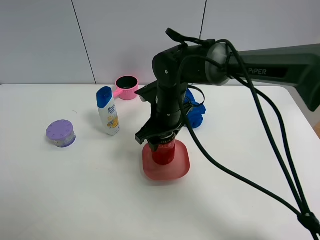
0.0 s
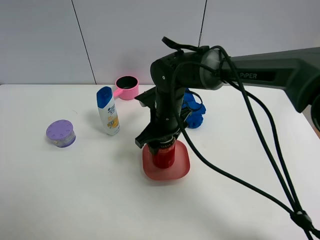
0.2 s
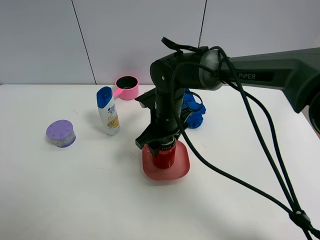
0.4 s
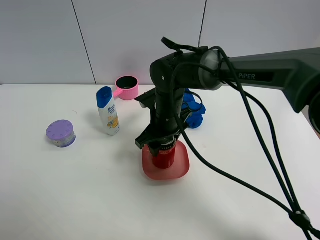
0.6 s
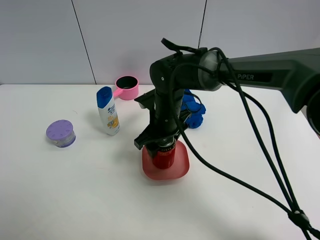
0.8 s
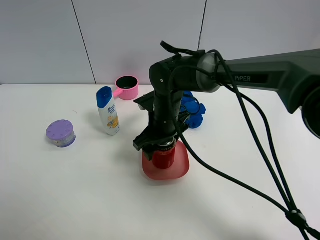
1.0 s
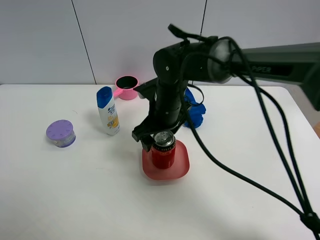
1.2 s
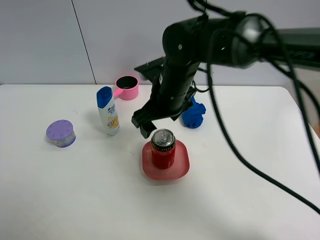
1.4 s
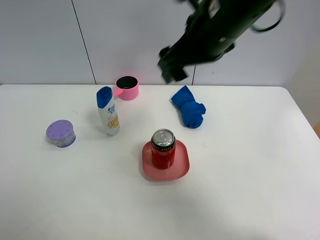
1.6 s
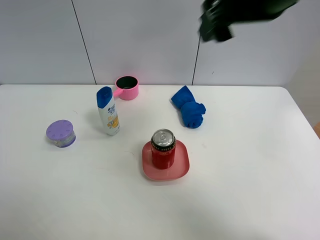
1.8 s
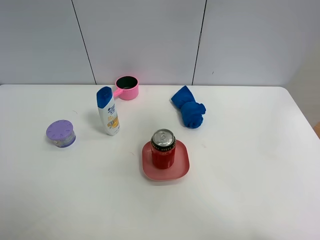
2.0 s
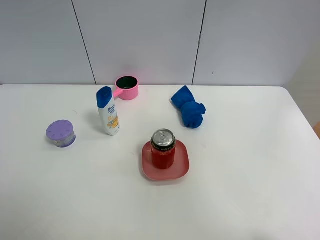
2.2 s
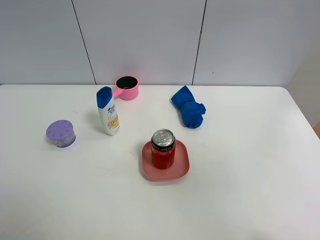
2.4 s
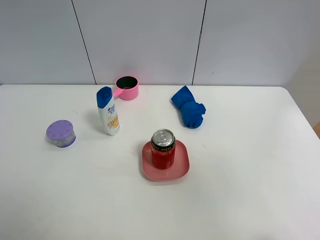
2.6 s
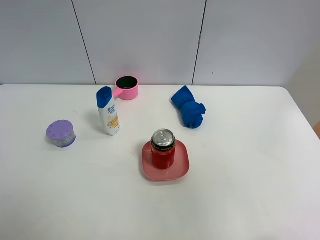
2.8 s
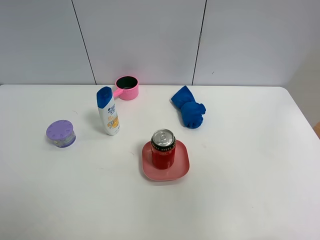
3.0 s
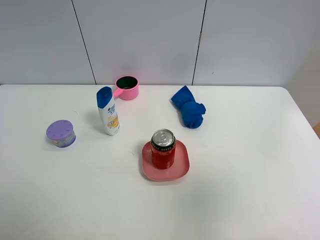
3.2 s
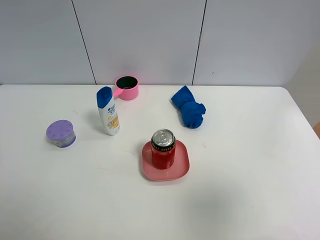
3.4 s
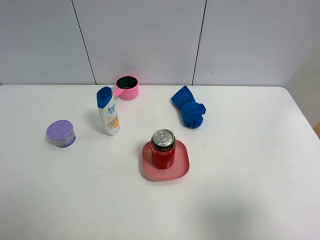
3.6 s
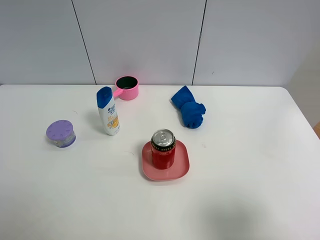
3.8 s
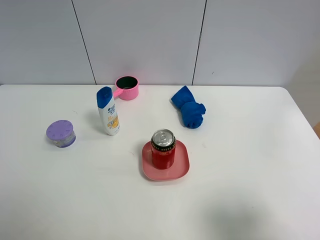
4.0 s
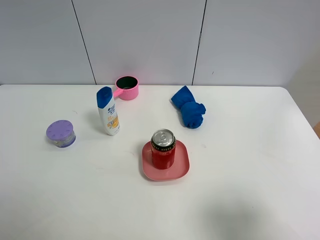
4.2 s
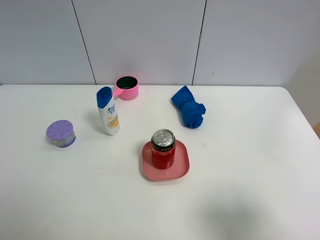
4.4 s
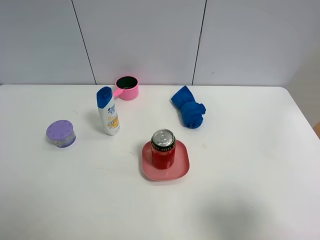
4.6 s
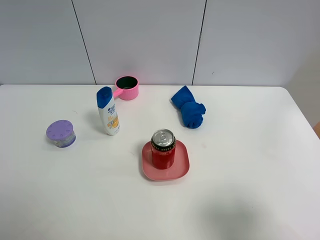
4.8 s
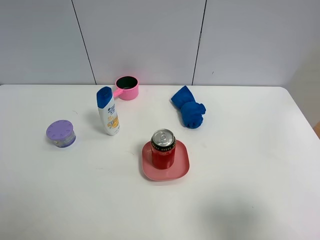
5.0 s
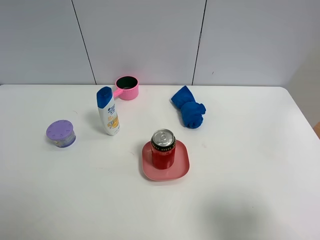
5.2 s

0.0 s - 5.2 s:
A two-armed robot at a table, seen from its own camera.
Task of the whole recording: the gripper move the object.
0.0 s - 1.8 s: The right gripper heads upward and to the right, covering about 30 cm, and opens.
1.8 s - 3.4 s: The right gripper shifts some 25 cm backward, to the right and downward.
3.4 s - 5.2 s: The right gripper moves downward, approximately 10 cm.

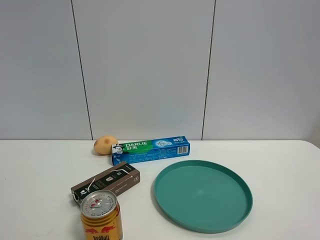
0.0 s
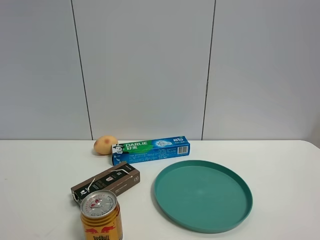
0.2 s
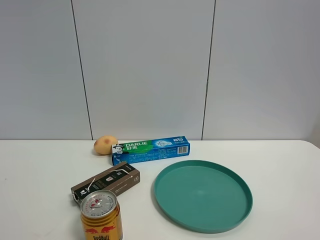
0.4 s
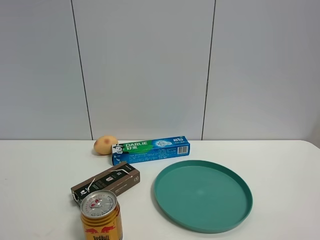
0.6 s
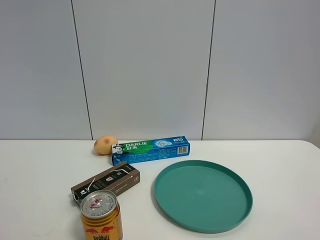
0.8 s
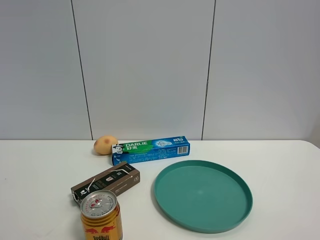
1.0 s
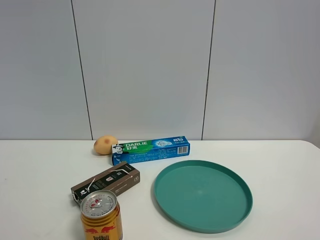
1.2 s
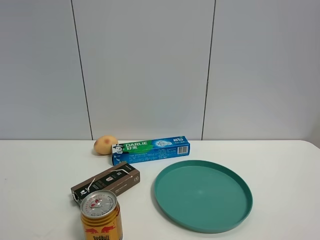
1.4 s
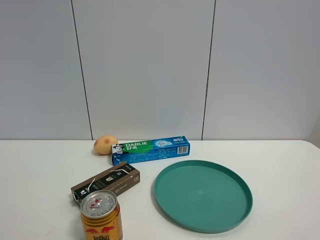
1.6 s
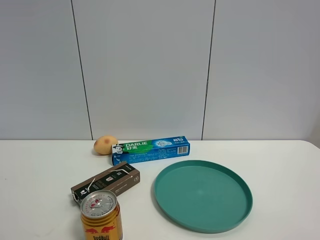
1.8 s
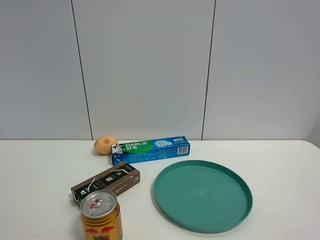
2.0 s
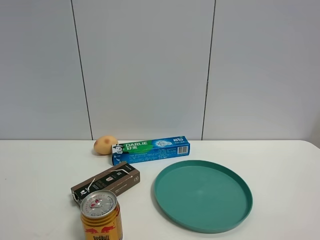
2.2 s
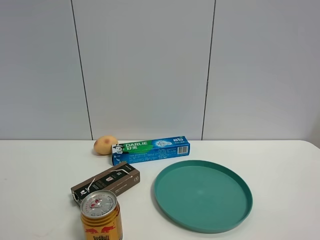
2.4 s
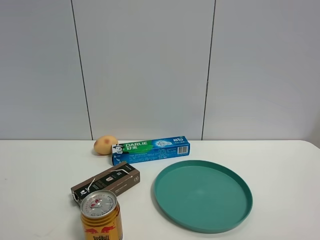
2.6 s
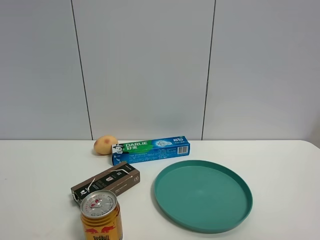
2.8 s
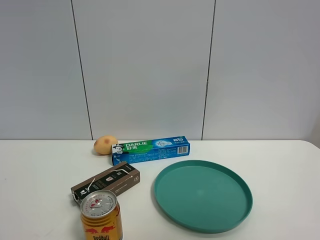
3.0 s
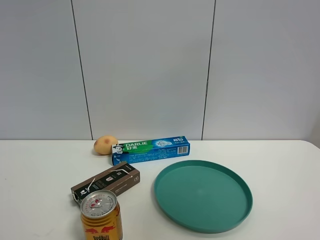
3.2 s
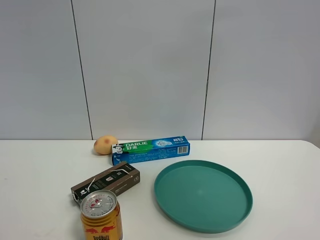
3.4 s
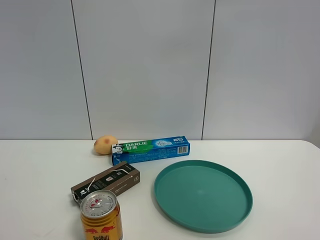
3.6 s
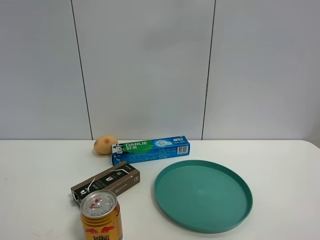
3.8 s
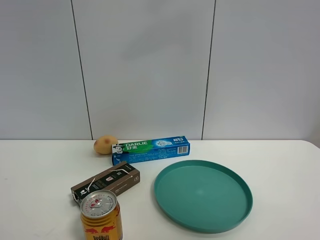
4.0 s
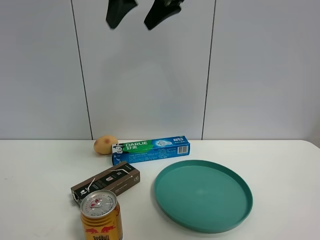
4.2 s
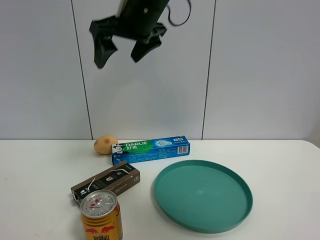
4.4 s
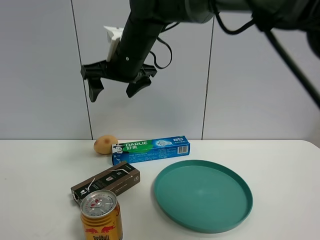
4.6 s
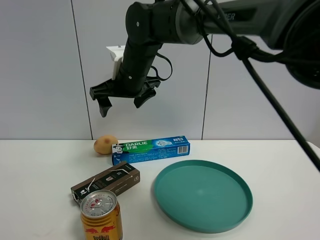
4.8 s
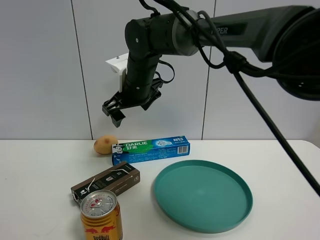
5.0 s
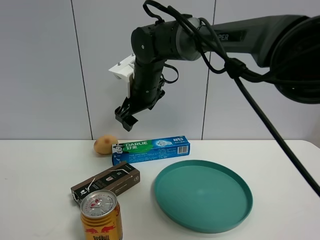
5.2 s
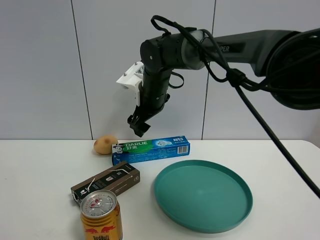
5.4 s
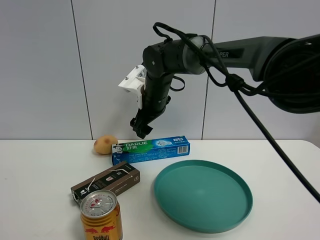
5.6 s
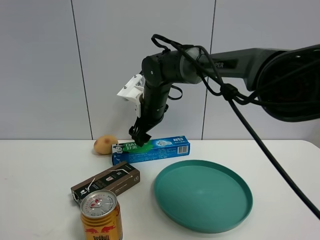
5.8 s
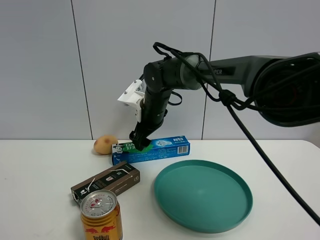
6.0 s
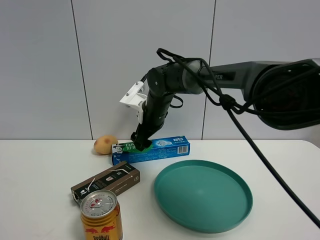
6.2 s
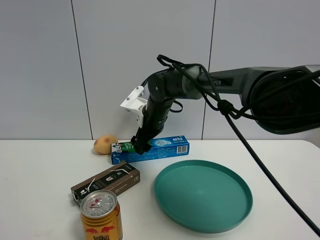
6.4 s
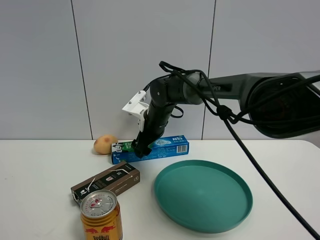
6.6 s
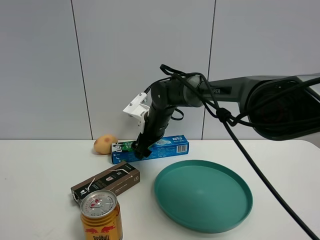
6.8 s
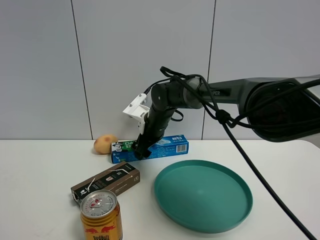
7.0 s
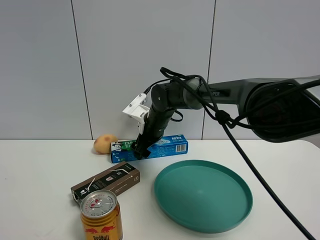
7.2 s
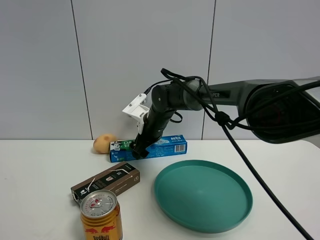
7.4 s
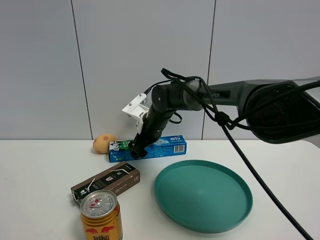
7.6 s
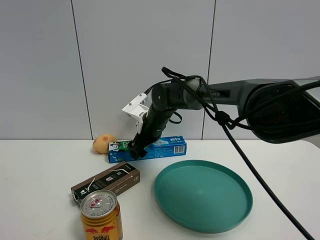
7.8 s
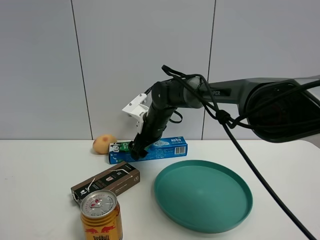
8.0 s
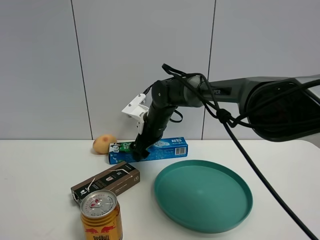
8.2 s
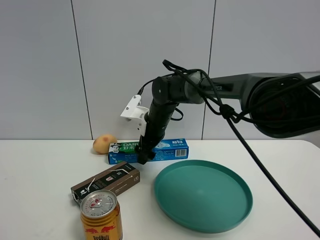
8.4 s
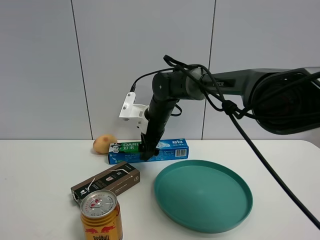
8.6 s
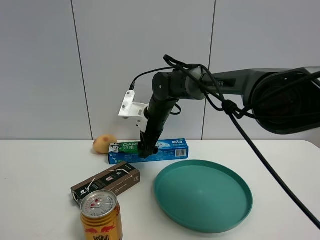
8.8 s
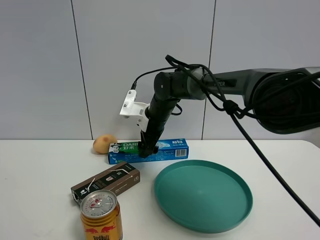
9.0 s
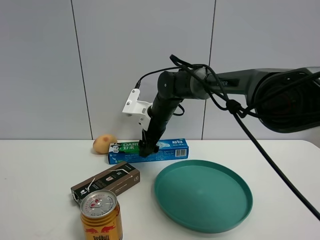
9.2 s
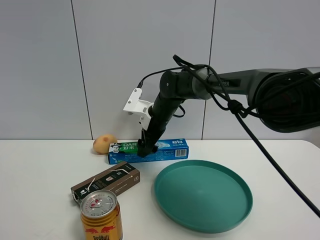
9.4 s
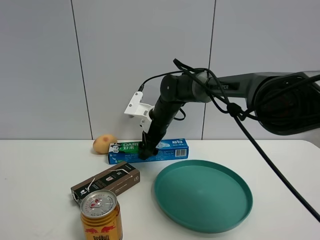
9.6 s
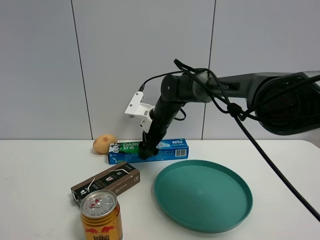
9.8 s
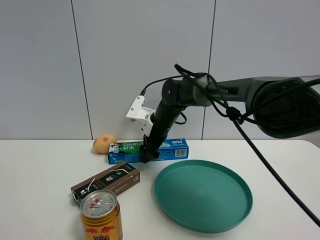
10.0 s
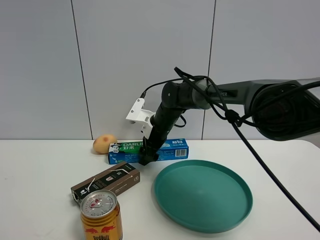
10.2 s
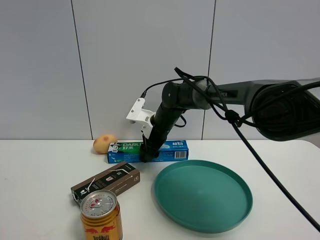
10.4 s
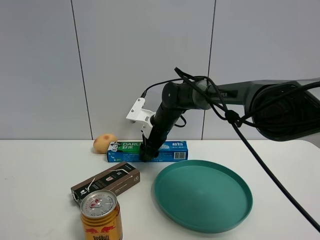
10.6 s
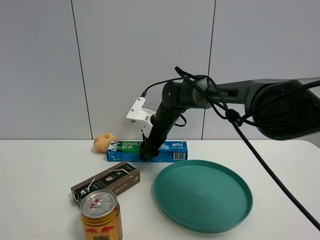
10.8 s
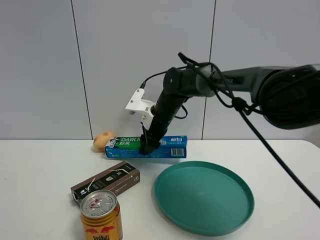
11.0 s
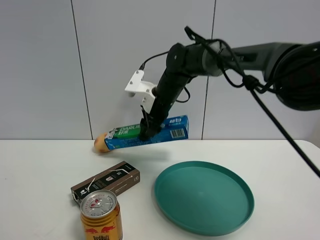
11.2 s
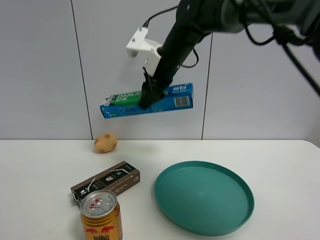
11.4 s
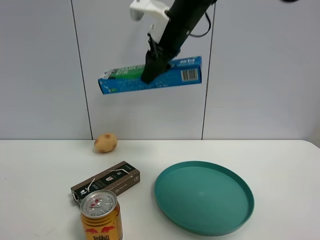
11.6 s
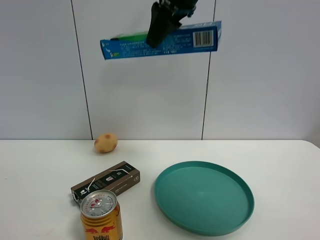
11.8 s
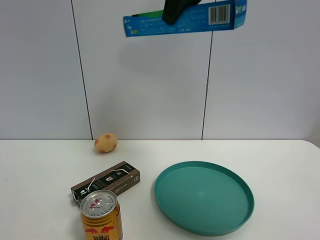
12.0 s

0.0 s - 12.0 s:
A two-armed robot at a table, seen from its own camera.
Task of the whole recording: the gripper move the object.
Step, 0.0 s - 10.6 s: Grasp the toothpaste with the right gripper.
1.6 s - 3.0 s: The right gripper is displaced upward by about 15 cm, and opens up.
3.0 s - 4.4 s: The right gripper moves forward and to the left, roughly 40 cm.
4.4 s - 6.0 s: The right gripper is displaced downward and forward by approximately 20 cm.
6.0 s - 7.6 s: The right gripper moves some 5 cm.
9.0 s - 10.4 s: The right gripper closes up.
10.4 s - 12.0 s: The right gripper moves upward, some 35 cm.

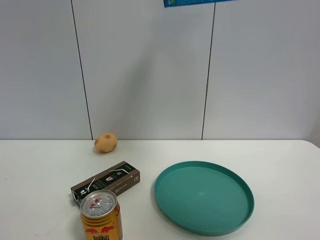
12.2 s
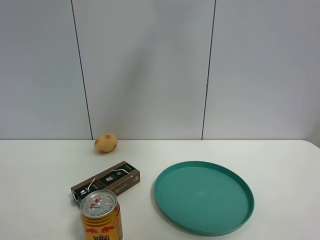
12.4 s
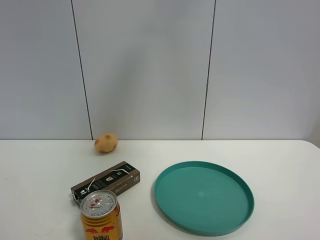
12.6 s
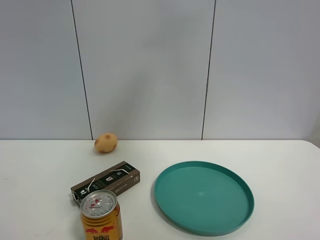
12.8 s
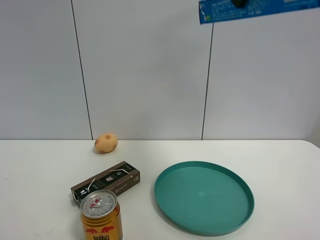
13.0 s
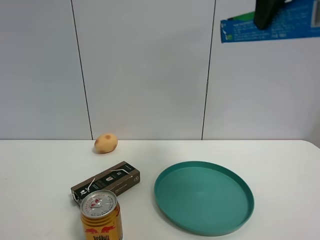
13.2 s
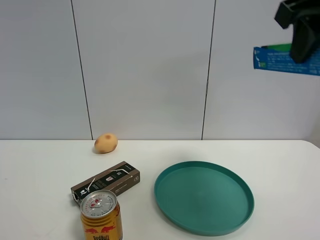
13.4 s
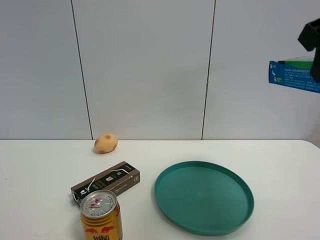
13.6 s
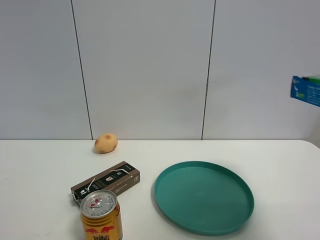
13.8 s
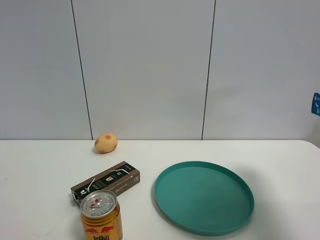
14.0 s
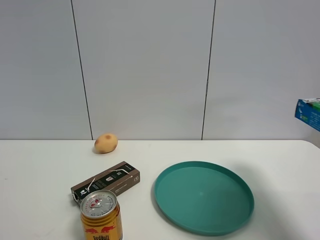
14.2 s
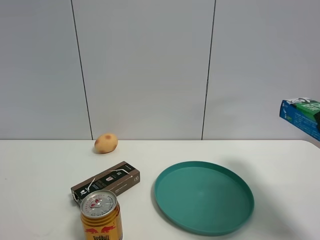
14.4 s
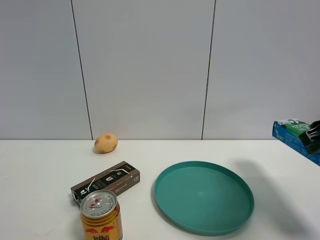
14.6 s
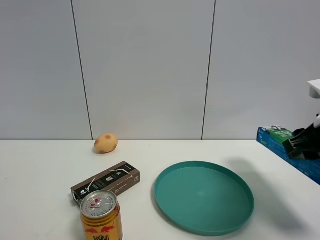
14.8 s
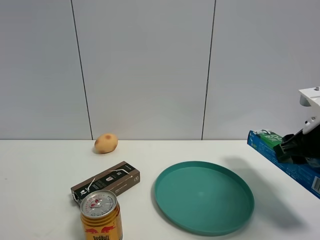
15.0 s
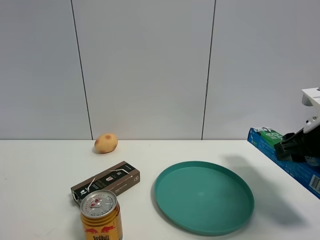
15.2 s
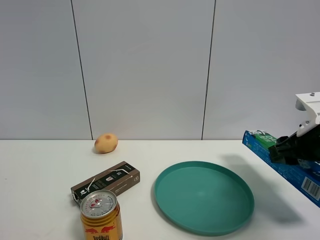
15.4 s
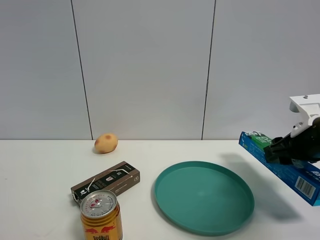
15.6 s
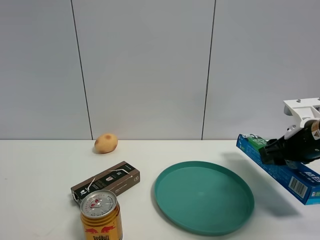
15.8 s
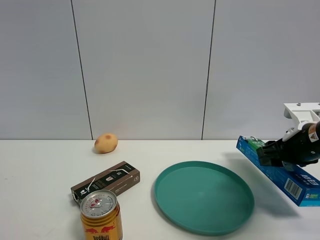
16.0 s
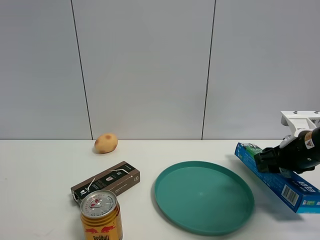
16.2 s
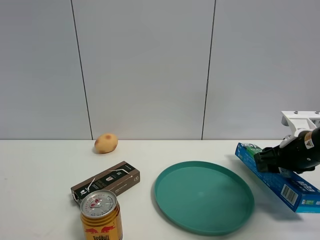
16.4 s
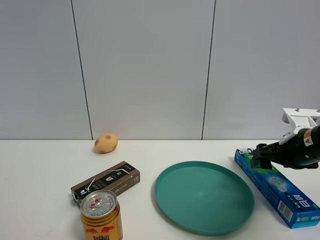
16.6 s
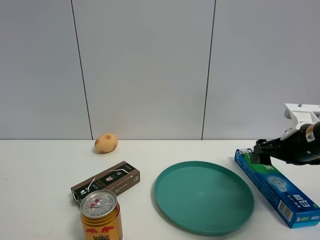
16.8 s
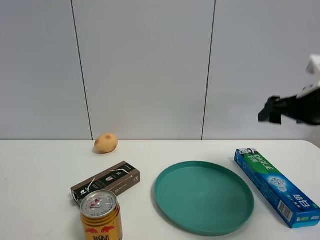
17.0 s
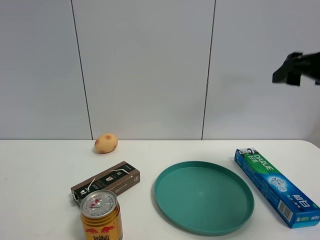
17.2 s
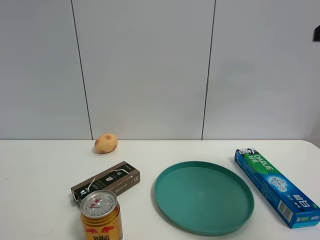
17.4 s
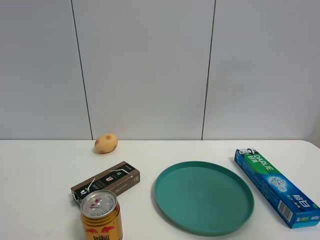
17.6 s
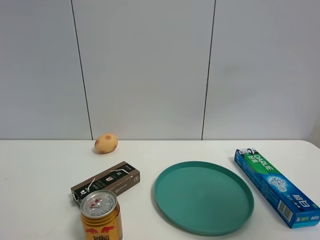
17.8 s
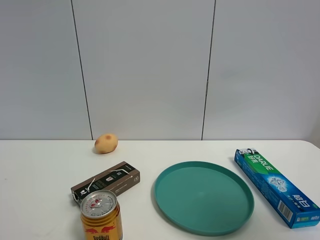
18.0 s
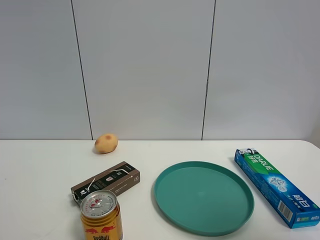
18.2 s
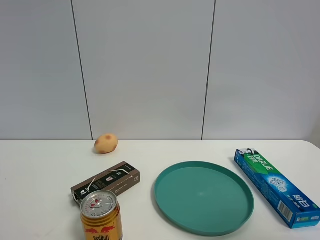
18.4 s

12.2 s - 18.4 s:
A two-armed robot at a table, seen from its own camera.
Task of the whole recording: the gripper move the object.
Step, 12.2 s - 16.8 s: Place the toothpaste on the table with the right gripper.
12.2 s - 13.8 s: The right gripper travels downward, backward and to the right by about 25 cm.
13.8 s - 15.4 s: The right gripper travels downward and forward by about 20 cm.
15.4 s - 16.8 s: The right gripper opens up.
16.8 s - 18.4 s: The right gripper travels backward and upward by some 40 cm.
